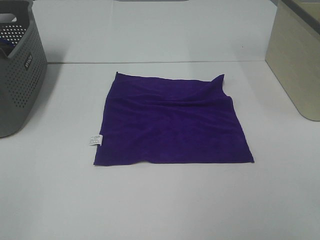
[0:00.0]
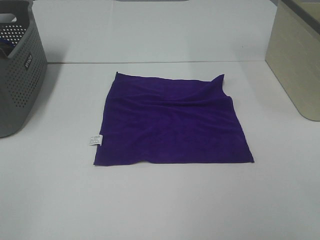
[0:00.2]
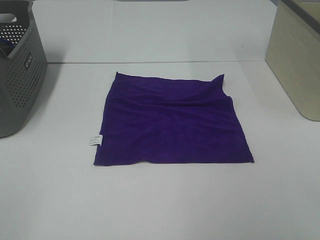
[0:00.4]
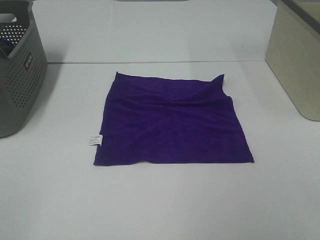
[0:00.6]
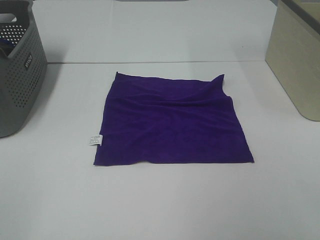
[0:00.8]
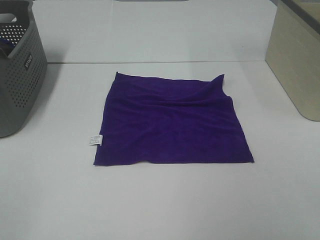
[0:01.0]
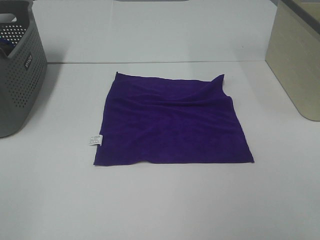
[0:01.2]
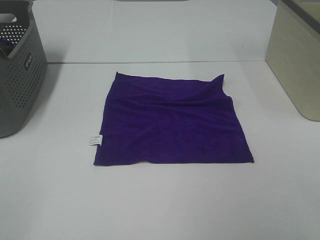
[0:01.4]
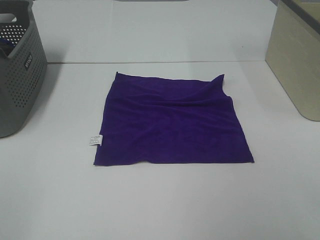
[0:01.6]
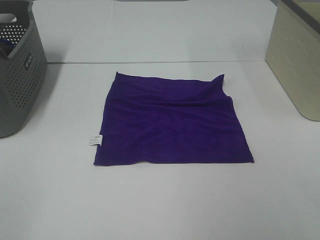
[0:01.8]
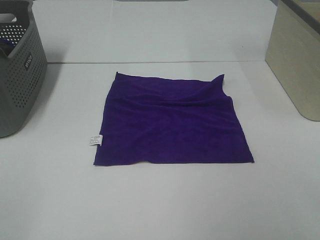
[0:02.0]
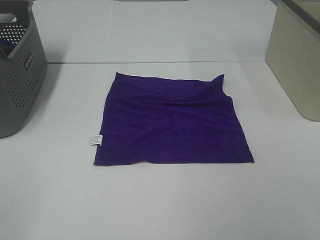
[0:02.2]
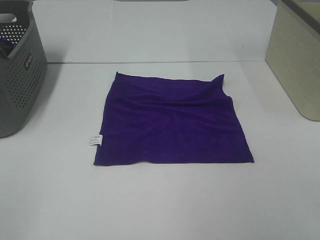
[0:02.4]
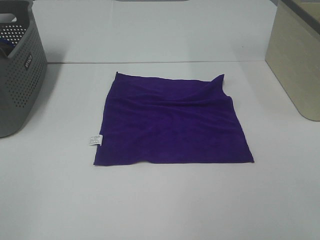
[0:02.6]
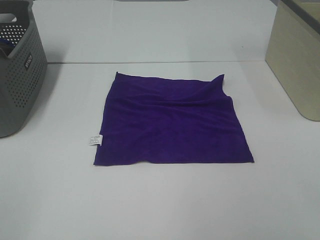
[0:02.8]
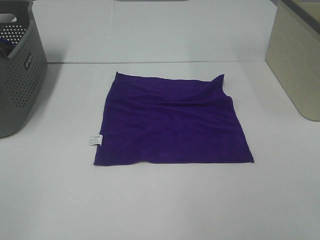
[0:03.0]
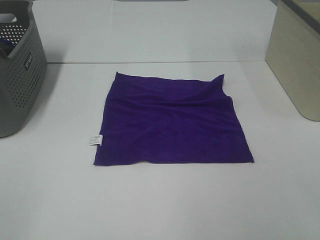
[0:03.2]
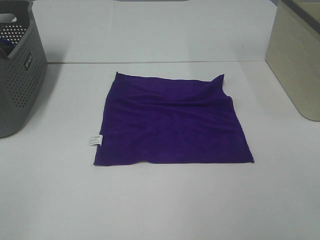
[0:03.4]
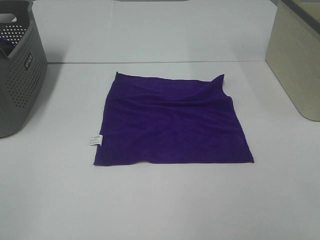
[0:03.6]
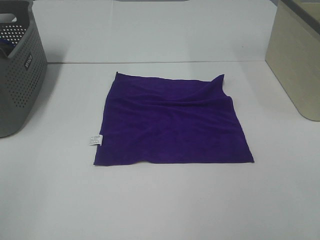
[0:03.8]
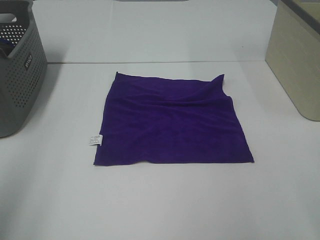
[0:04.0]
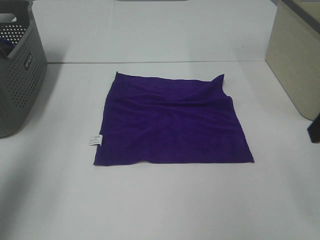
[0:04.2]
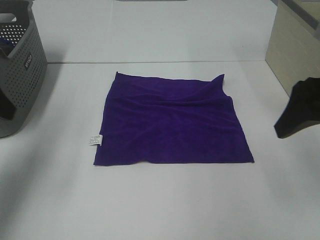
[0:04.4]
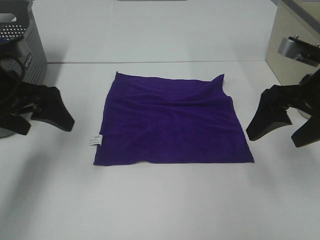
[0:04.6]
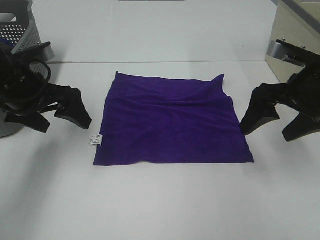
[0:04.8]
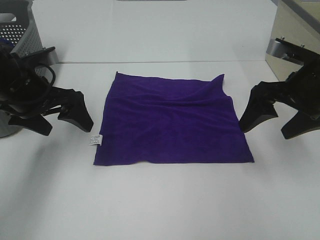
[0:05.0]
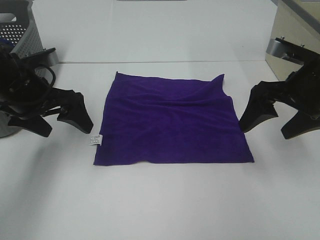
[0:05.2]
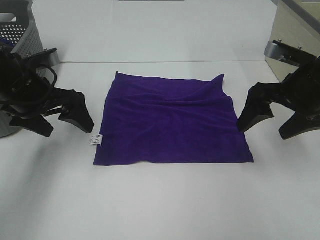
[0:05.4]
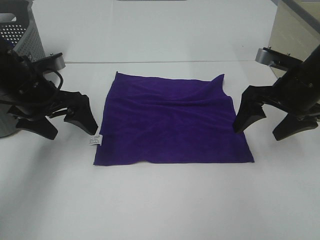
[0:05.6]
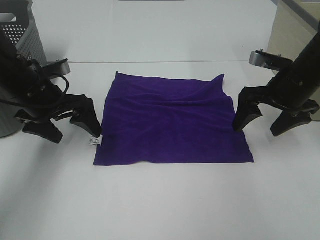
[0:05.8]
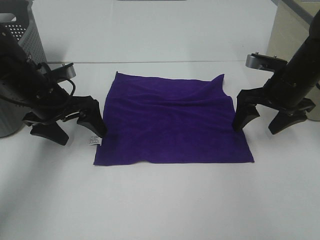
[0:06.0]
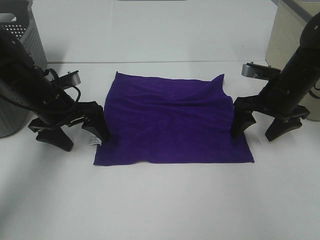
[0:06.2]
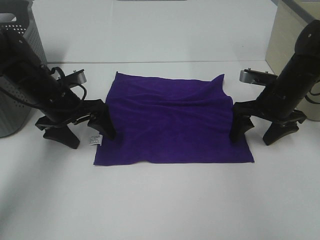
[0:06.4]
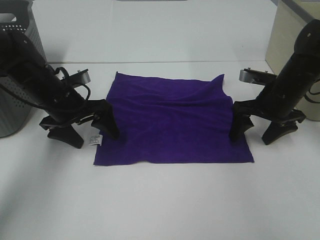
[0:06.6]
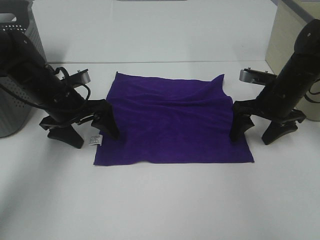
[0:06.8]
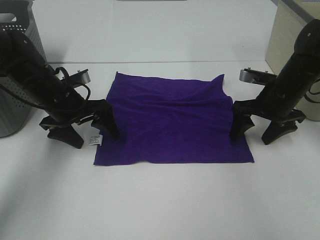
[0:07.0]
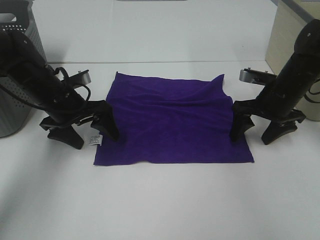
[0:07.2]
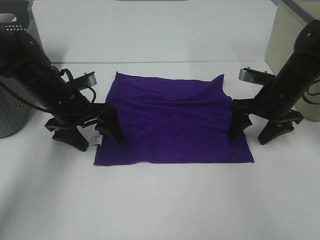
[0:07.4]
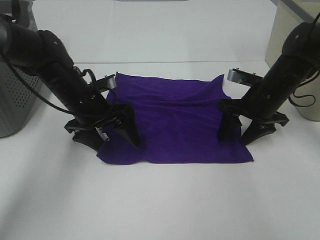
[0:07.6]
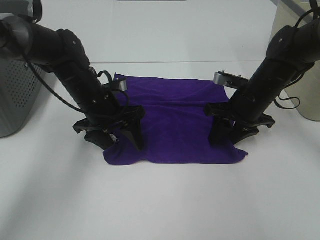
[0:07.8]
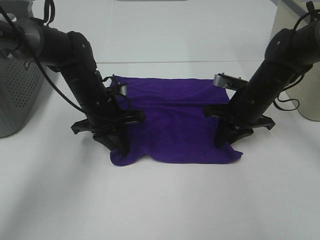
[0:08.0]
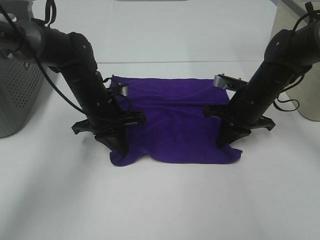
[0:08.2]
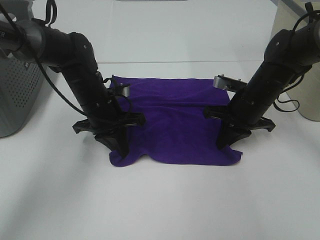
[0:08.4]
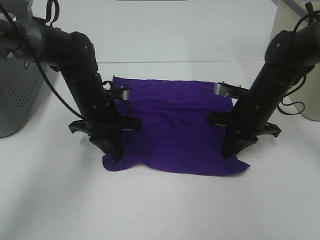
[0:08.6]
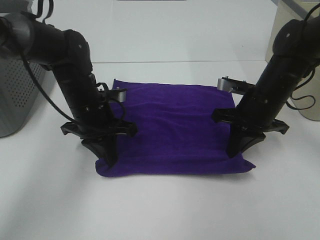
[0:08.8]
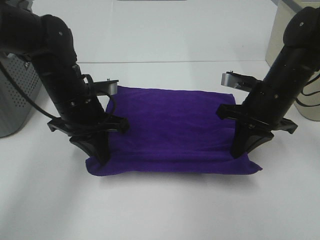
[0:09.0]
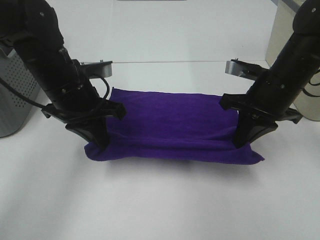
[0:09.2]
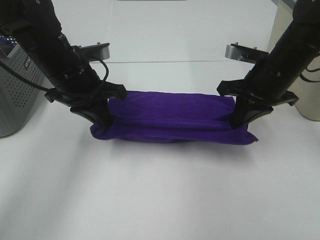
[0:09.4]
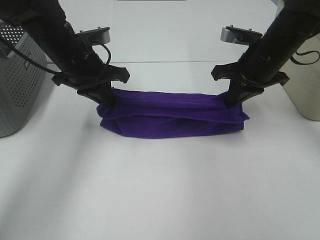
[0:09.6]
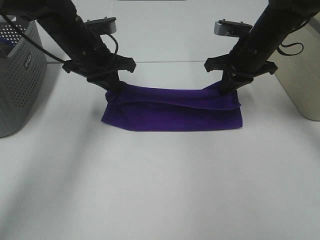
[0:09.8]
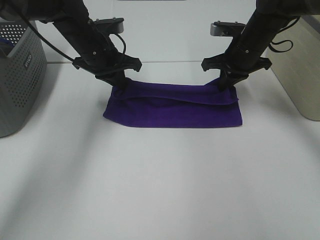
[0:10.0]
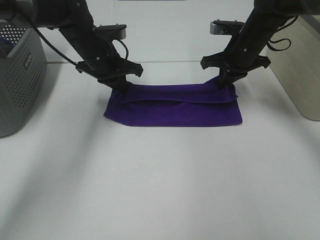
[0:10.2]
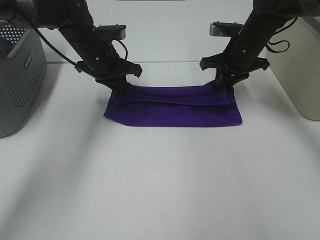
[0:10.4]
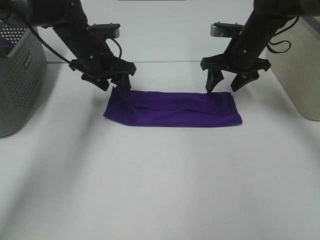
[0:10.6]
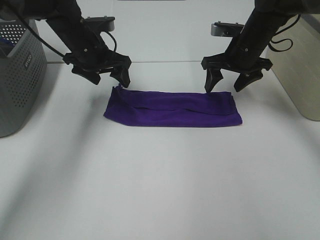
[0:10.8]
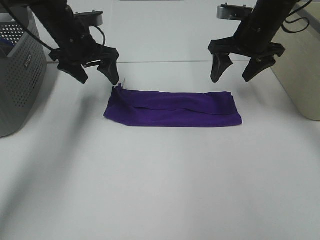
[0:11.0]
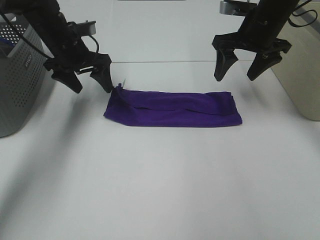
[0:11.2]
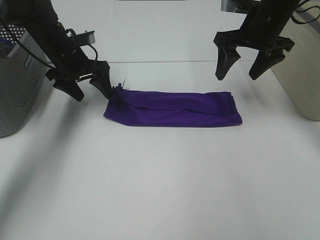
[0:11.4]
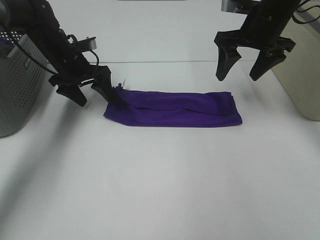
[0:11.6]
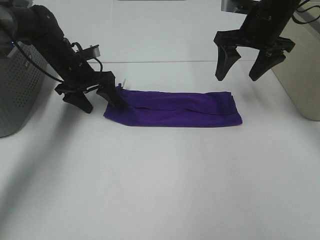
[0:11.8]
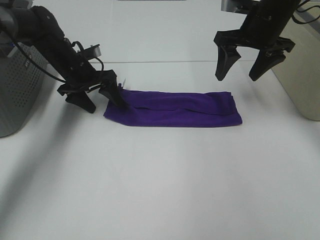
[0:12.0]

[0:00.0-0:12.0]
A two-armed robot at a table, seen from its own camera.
Task of the whole recording: Fold towels.
Step, 0:00.0 to 0:08.4: Left hand: grab the bottom left corner of purple towel.
Step, 0:00.0 to 0:08.4: Right hand: grab the bottom right corner of purple towel.
Step, 0:08.6 to 0:10.2: Left hand: fold the purple towel up.
Step, 0:08.6 to 0:10.2: Right hand: fold the purple towel up.
0:00.0 to 0:03.0: Neither gripper changes place.
0:03.0 to 0:04.4: Both grippers travel together forward, about 25 cm.
0:04.4 to 0:06.0: The left gripper moves downward, forward and to the right, approximately 20 cm; the right gripper moves forward and downward, about 15 cm.
0:06.0 to 0:07.6: The right gripper heads downward, covering about 5 cm. Meanwhile the left gripper travels to the right by about 5 cm.
0:07.6 to 0:09.0: The left gripper is displaced upward by about 5 cm, and closes up; the right gripper shifts roughly 10 cm upward and backward, and closes its fingers.
0:09.0 to 0:10.4: The two grippers go roughly 15 cm forward.
0:10.4 to 0:12.0: The right gripper shifts approximately 10 cm upward, and opens its fingers. Meanwhile the left gripper moves to the left, approximately 5 cm, and opens.

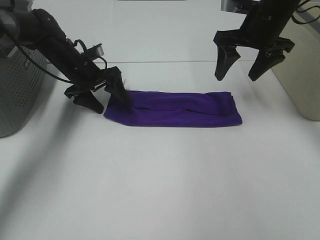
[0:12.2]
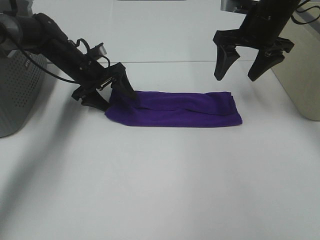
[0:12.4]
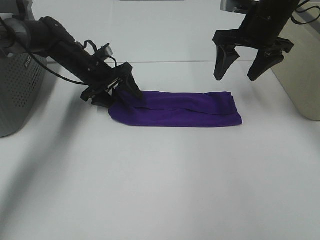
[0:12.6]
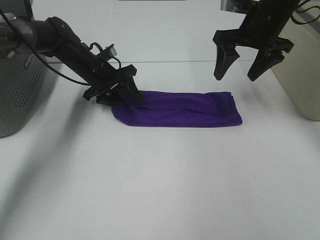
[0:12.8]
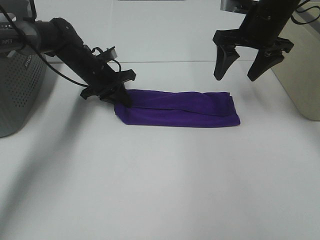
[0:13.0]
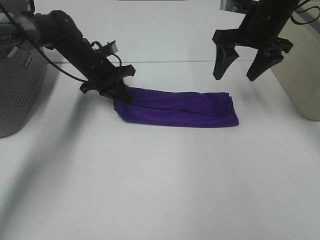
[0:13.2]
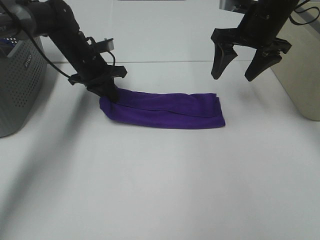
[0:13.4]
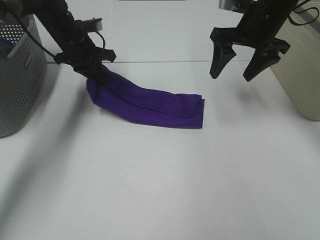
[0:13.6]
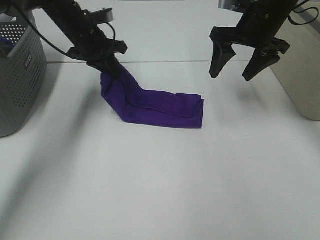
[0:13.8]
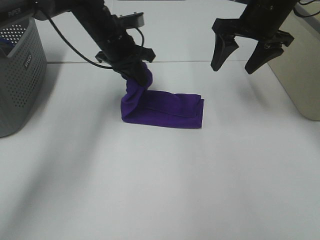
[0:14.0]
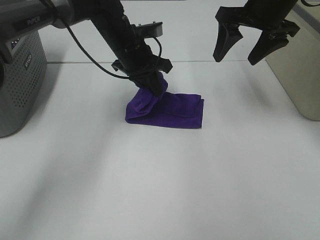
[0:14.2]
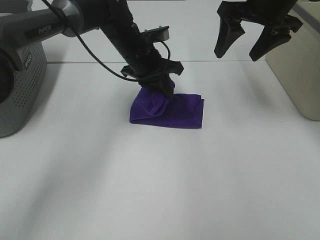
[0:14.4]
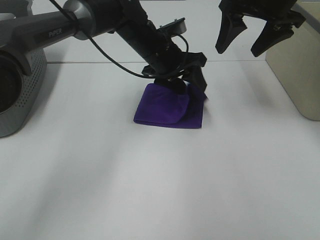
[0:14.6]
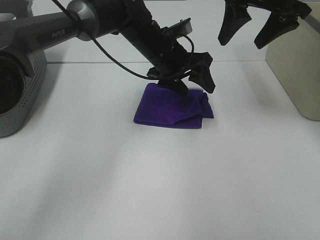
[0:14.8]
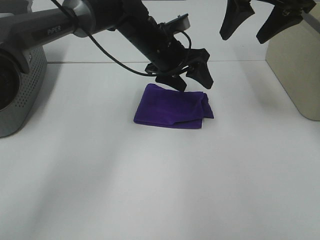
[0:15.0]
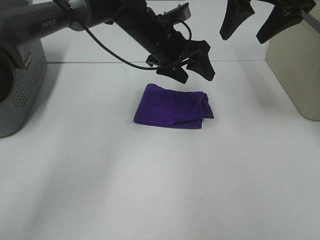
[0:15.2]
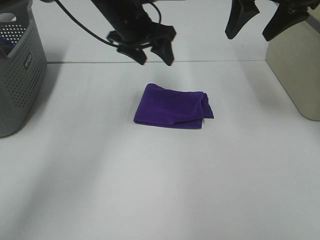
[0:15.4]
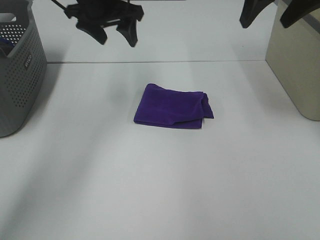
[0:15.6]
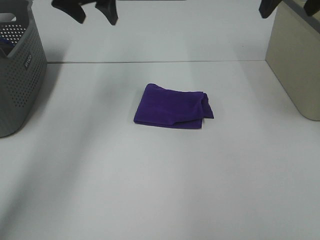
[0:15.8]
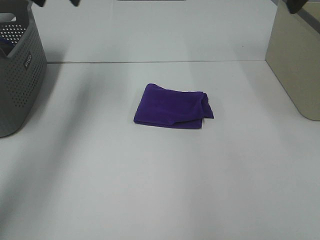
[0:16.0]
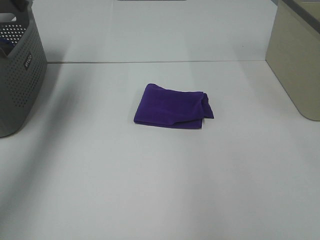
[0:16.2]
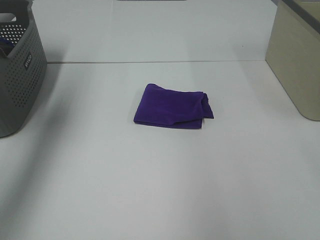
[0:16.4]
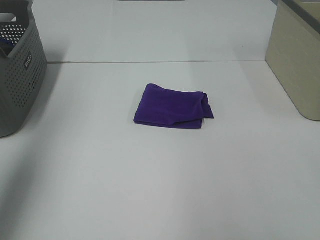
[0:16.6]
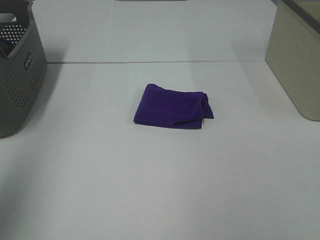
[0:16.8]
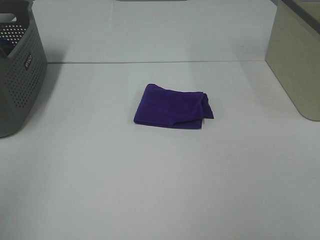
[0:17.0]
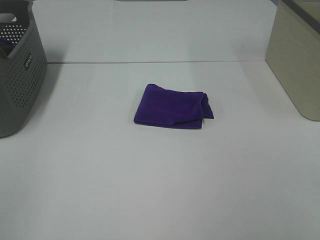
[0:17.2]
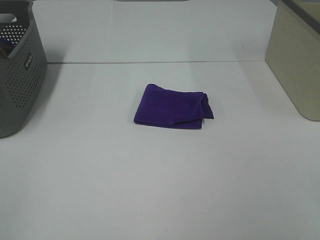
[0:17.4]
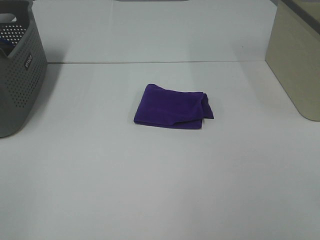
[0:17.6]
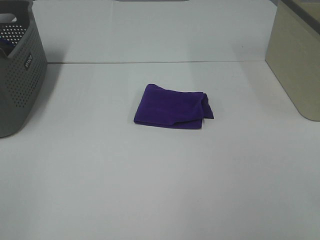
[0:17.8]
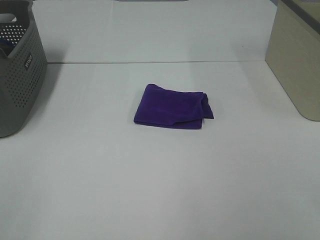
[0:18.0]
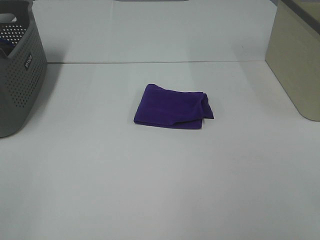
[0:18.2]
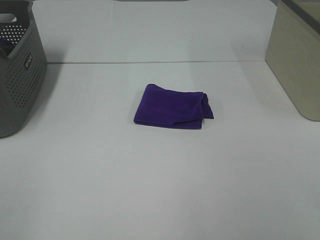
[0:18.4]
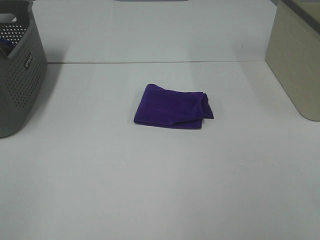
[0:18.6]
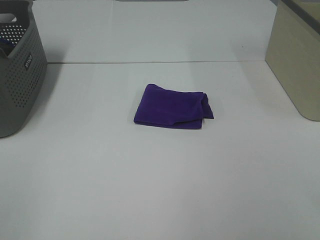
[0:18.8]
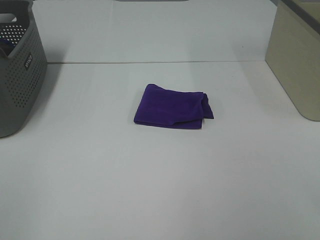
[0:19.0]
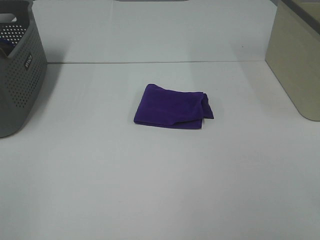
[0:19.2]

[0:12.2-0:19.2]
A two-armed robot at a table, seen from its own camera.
Task of the whole recording: Fold towels.
Step, 0:12.2 to 0:14.4: Left hand: fold the purple towel from left to right.
0:12.2 to 0:13.6: The left gripper moves upward, approximately 5 cm, and closes.
0:13.6 to 0:15.0: The left gripper is displaced to the right by approximately 20 cm, and opens its fingers, while the right gripper goes some 10 cm upward.
0:15.0 to 0:16.4: The right gripper moves backward and upward, roughly 20 cm; the left gripper shifts roughly 35 cm to the left, upward and backward.
0:16.4 to 0:17.8: The left gripper is displaced backward by roughly 35 cm.

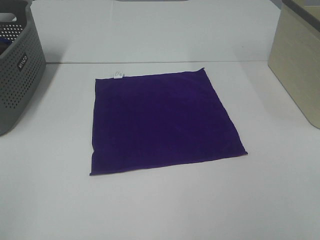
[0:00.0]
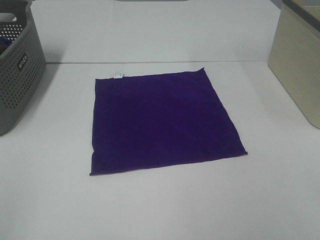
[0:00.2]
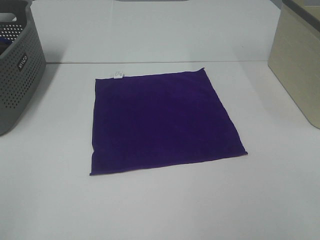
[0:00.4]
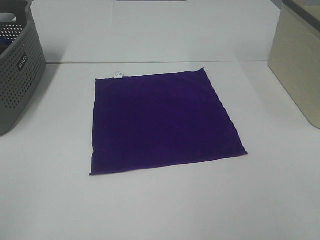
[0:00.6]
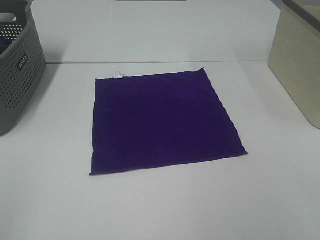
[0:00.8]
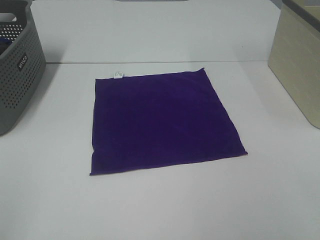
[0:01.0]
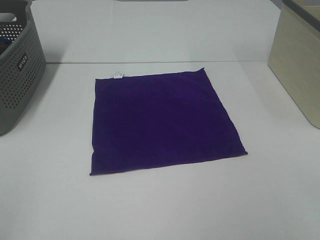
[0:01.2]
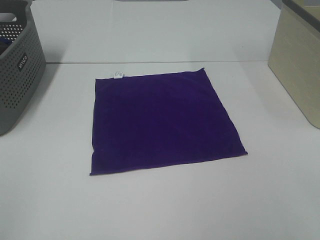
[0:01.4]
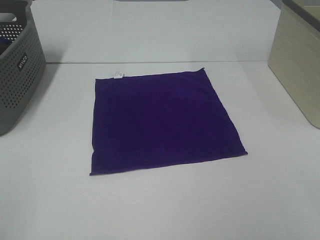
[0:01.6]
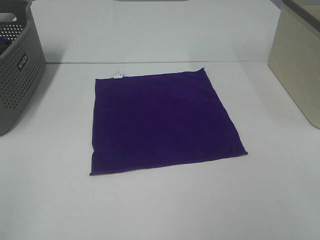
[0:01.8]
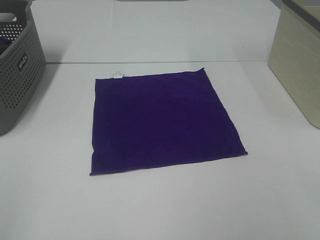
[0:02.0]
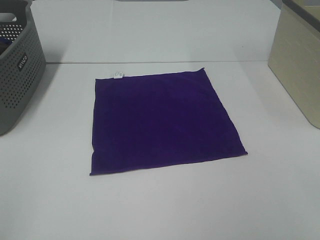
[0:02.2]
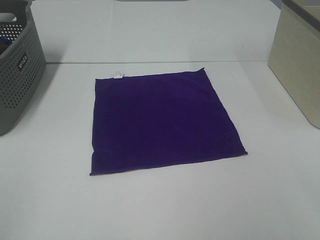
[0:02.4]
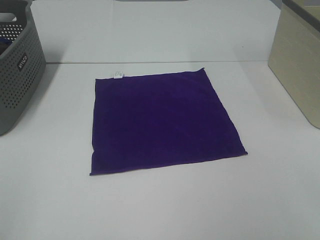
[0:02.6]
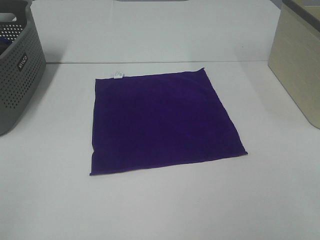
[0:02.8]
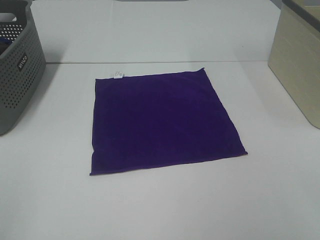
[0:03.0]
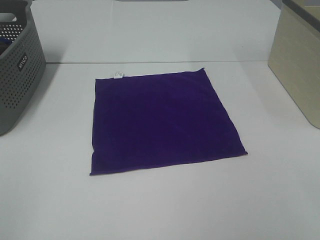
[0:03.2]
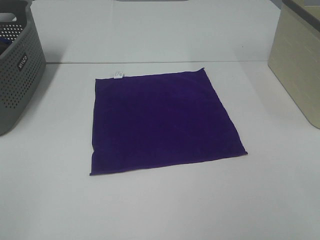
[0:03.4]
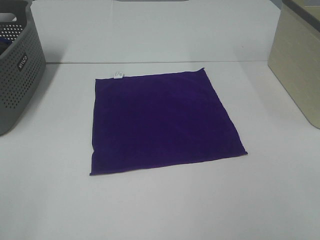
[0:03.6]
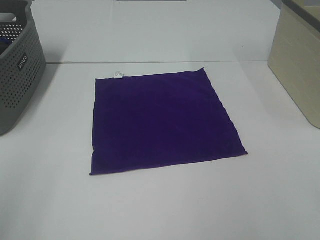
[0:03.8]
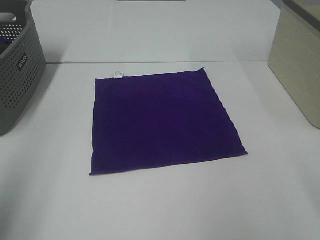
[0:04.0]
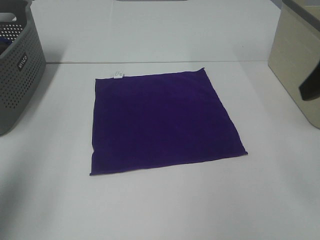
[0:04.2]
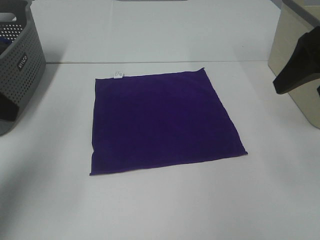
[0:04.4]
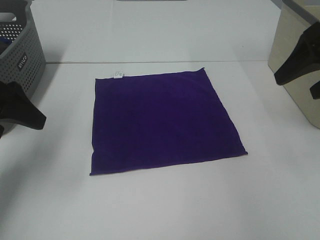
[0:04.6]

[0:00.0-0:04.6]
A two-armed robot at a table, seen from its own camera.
Task of the whole recording: Fold towels.
0:01.6 to 0:03.0: The two grippers keep their place.
0:03.0 to 0:04.6: Both grippers move forward, some 30 cm.
